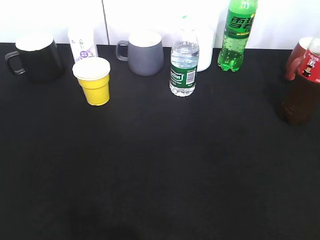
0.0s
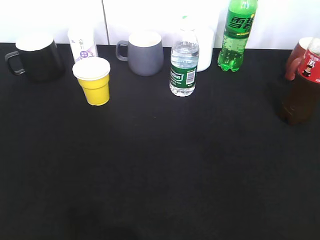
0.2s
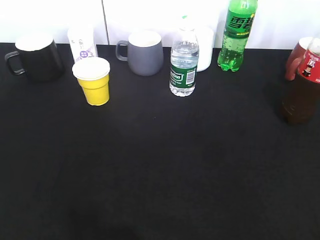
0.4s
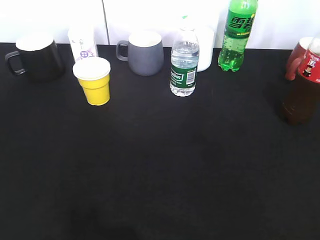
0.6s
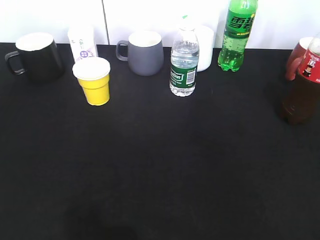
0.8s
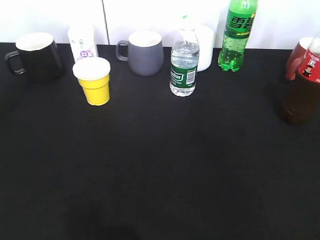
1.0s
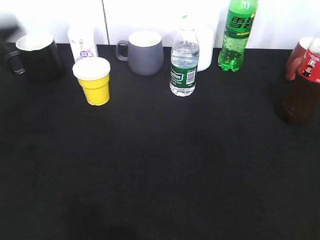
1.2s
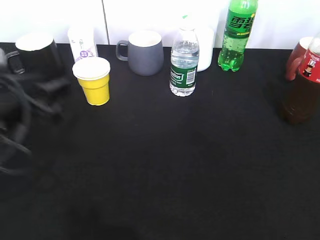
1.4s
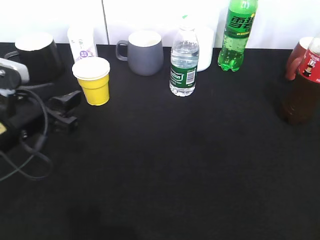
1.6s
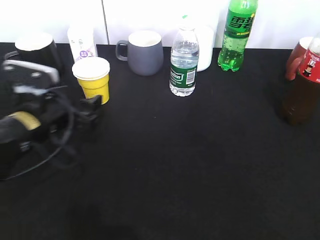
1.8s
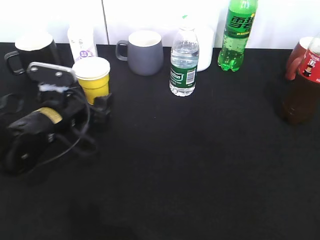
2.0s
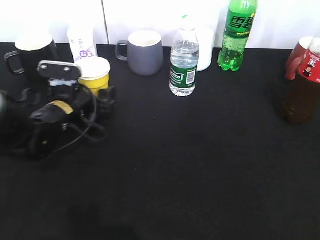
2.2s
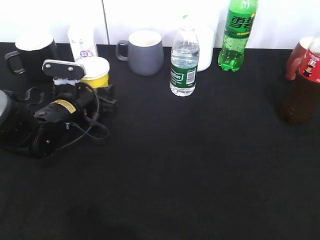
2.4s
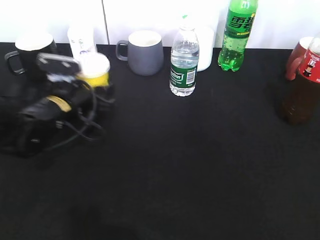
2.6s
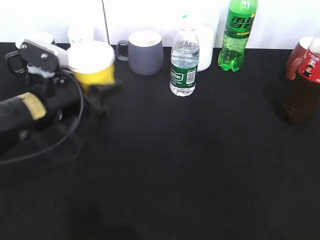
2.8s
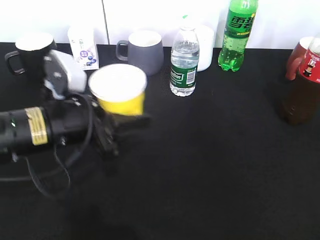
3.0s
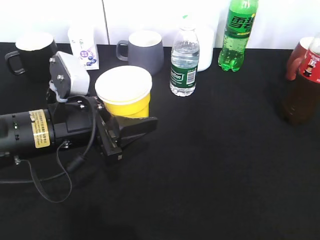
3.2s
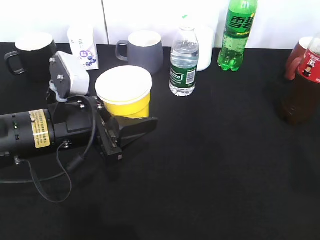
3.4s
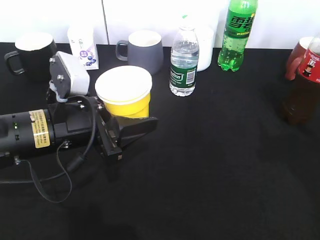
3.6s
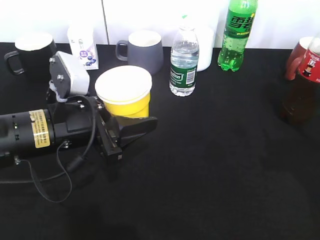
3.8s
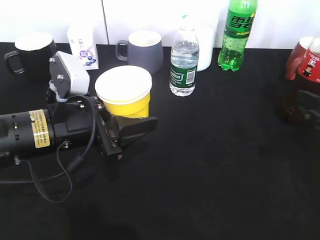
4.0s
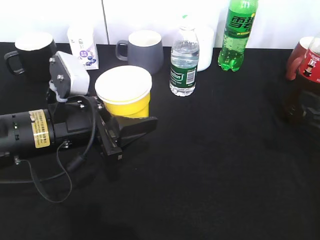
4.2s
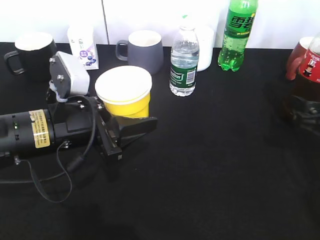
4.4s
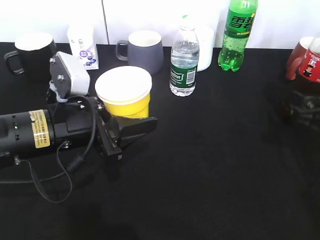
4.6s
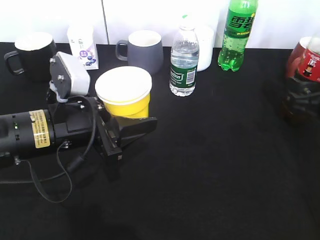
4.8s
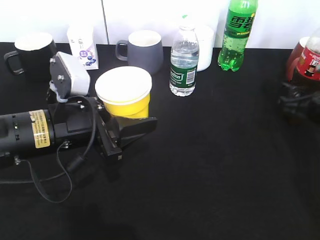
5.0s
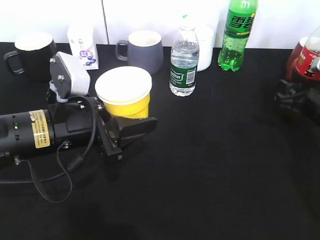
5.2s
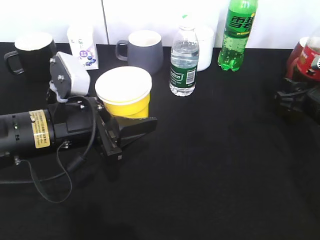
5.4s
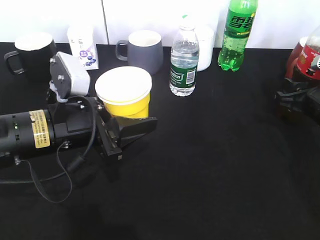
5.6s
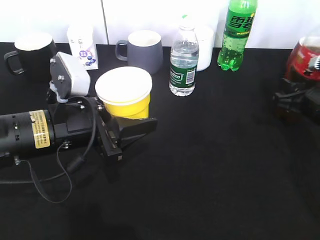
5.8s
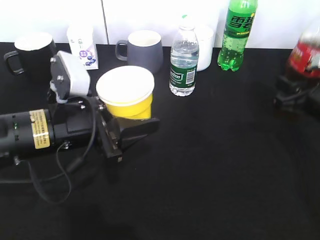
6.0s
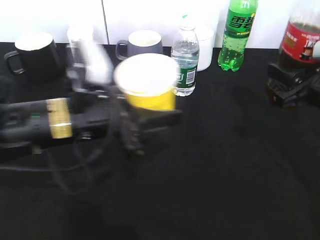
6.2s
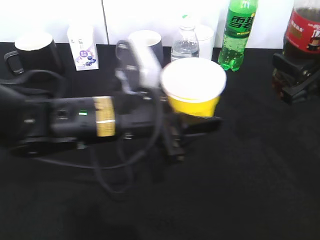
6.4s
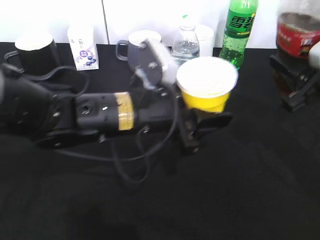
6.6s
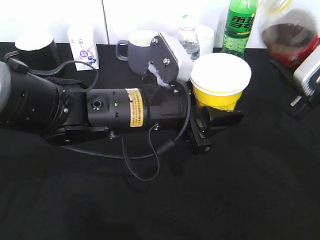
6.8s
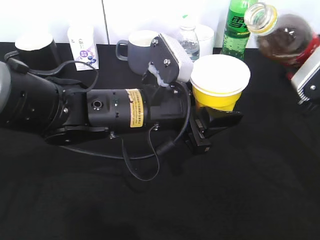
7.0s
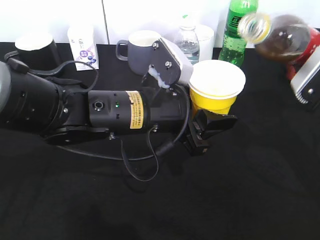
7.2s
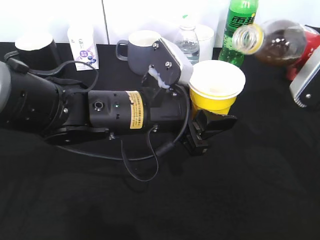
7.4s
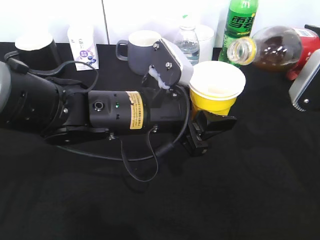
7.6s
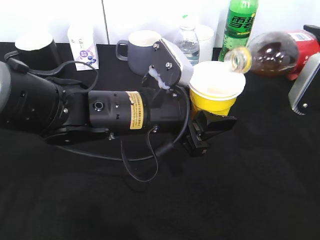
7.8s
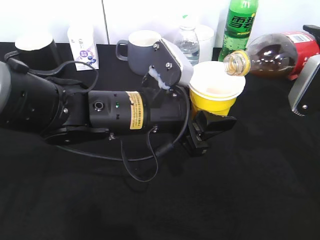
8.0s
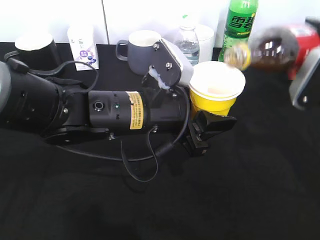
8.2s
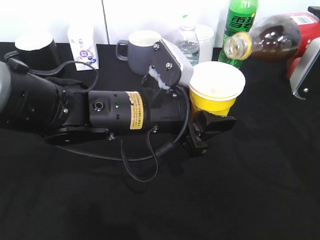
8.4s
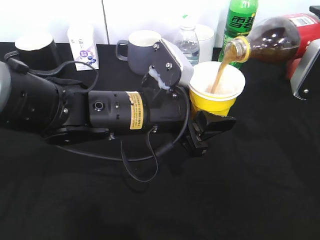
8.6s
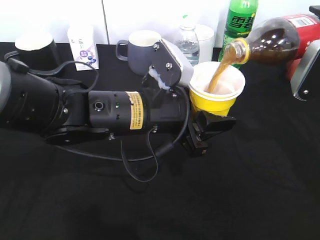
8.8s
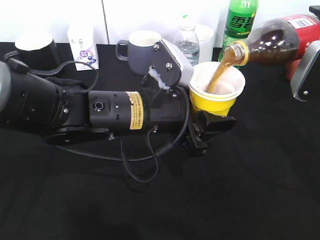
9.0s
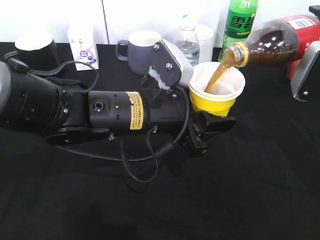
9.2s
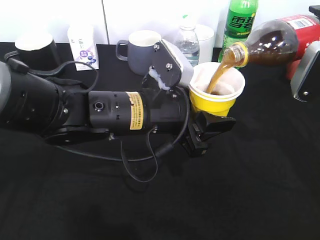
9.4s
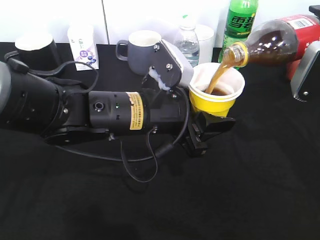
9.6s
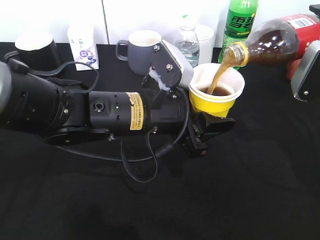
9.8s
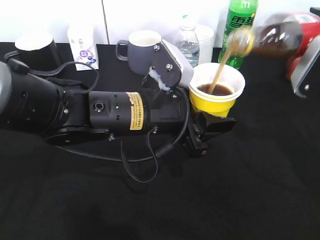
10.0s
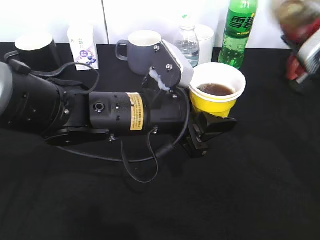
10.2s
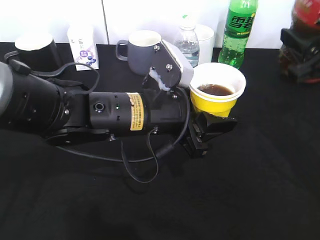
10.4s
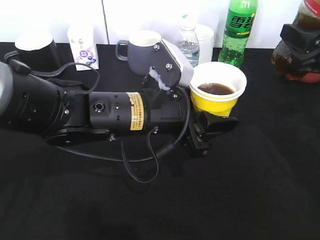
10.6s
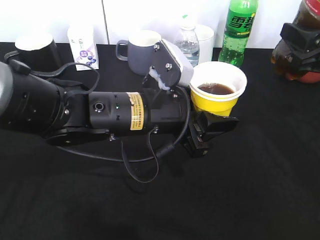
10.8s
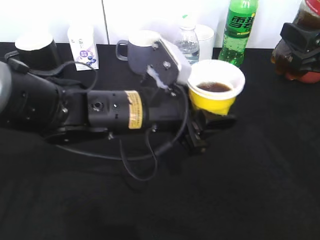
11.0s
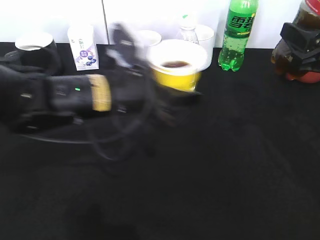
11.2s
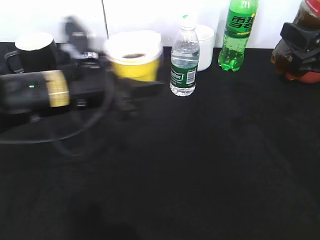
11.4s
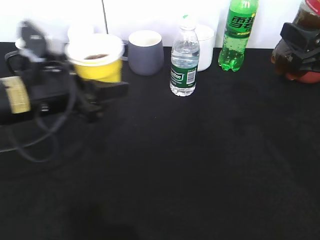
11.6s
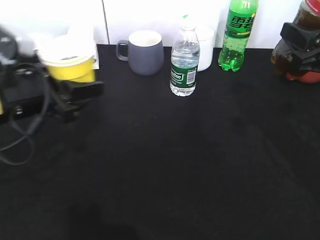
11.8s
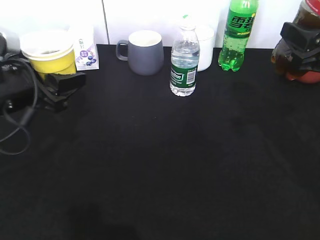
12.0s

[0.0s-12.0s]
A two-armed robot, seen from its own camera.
Step, 0.0s to 2.2s: Grasp the yellow paper cup with left gripper.
Step, 2.4s to 3.2s: Lift the yellow paper cup with left gripper.
Step, 5.8s to 9.8s: Pour the cola from bottle to cup with right gripper.
0.0s to 1.6s: The left gripper moves forward, downward and to the right, about 30 cm, and opens its fingers.
1.6s to 3.0s: The left gripper heads to the right, covering roughly 5 cm, travels forward and back again, approximately 10 cm each way, and opens and closes again.
3.0s to 4.4s: The right gripper is displaced forward and downward by roughly 25 cm.
4.4s to 6.0s: The right gripper closes.
6.0s to 7.6s: The left gripper travels to the right by roughly 10 cm. Meanwhile the right gripper goes approximately 5 cm upward.
7.6s to 9.0s: The grippers make only small movements.
10.4s to 12.0s: The left gripper is displaced to the left by about 20 cm.

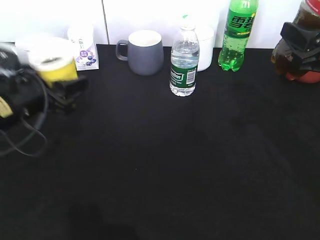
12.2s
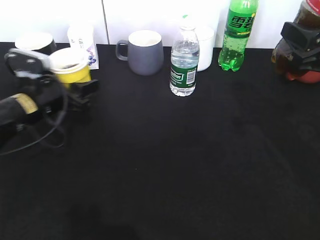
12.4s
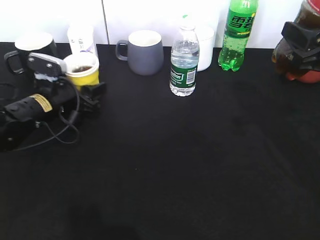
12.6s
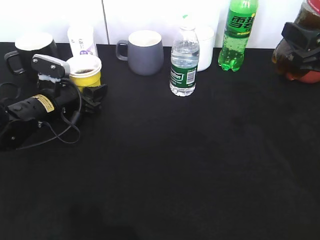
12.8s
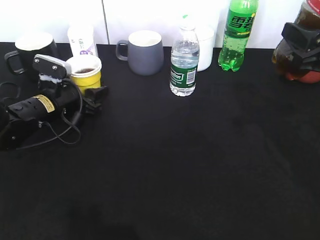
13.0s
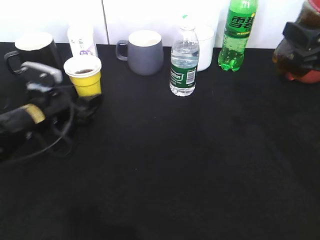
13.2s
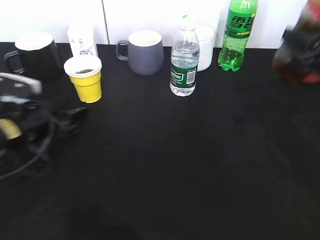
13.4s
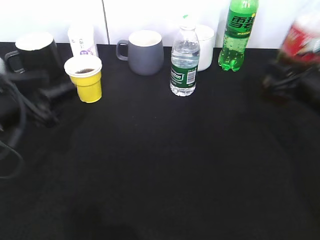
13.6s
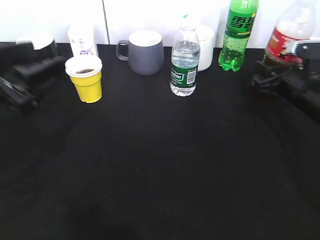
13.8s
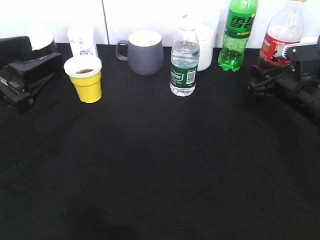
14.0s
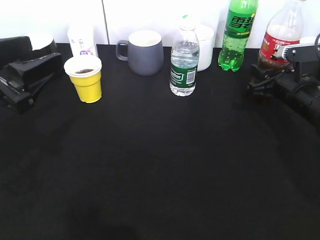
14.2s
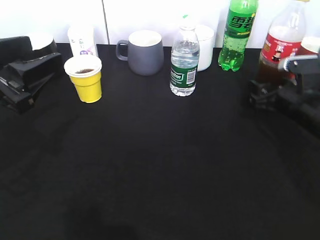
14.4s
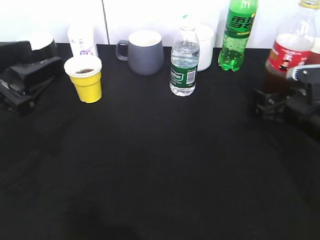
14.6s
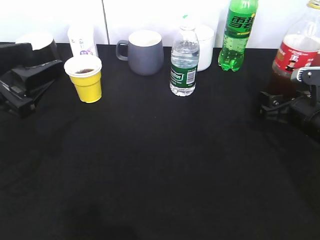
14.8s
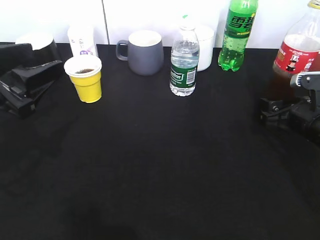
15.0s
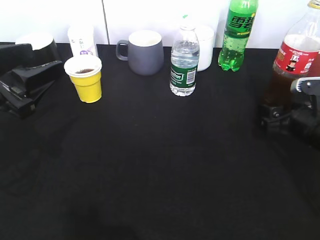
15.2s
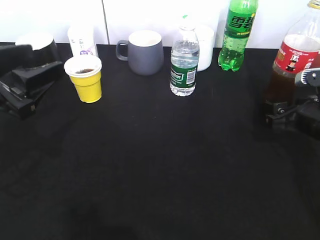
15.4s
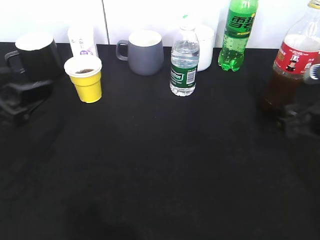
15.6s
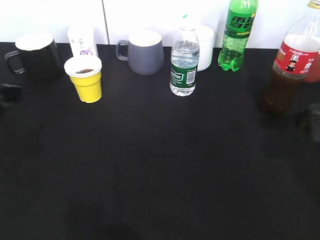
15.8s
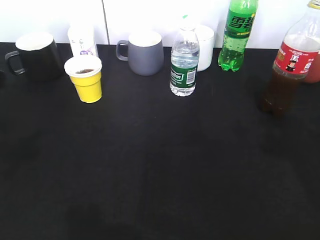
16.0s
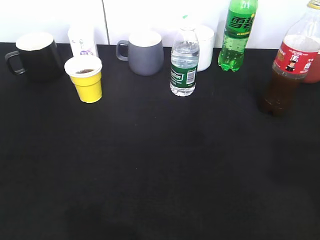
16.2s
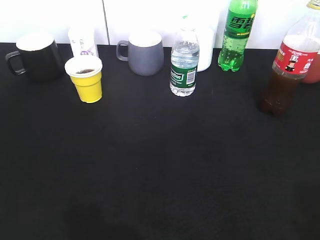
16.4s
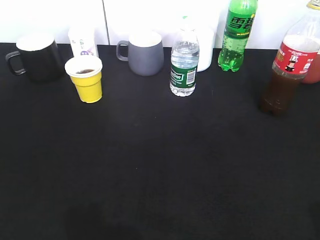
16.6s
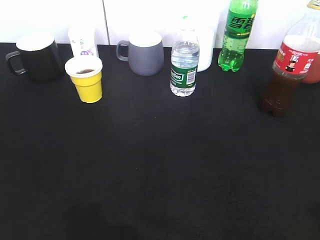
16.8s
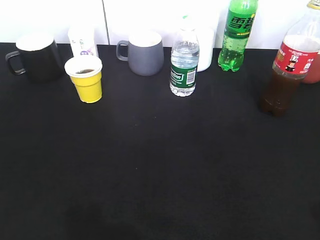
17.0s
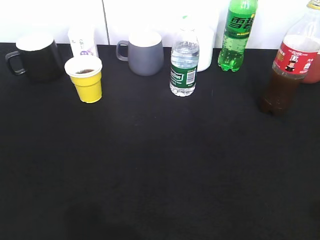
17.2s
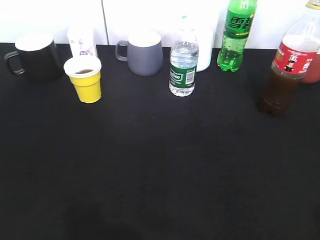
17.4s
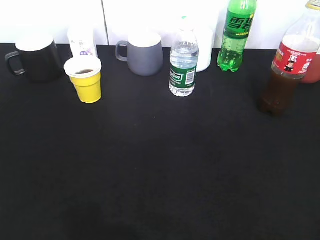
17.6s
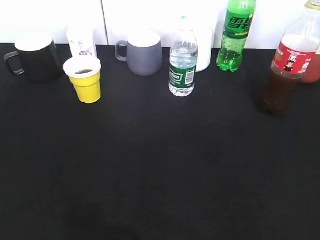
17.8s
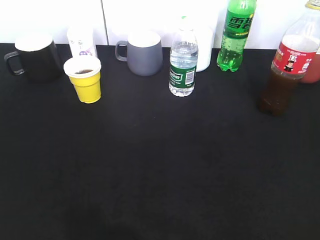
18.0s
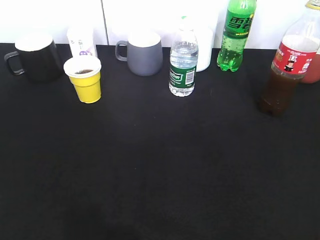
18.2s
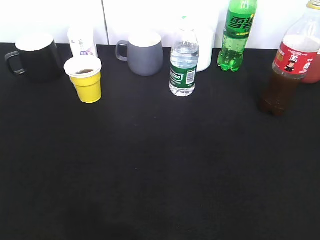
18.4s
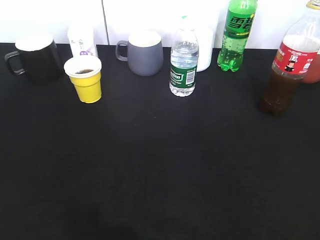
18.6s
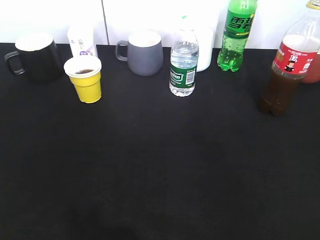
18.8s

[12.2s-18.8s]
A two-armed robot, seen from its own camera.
Step, 13.4s to 15.6s: Place the cola bottle on the table with right gripper.
12.2s to 13.8s: The right gripper goes about 15 cm downward and forward, while the left gripper heads upward and backward, covering approximately 10 cm.
13.8s to 15.4s: The right gripper travels backward by some 5 cm, and opens up.
15.4s to 17.2s: The left gripper goes some 20 cm backward and to the left. The right gripper goes roughly 30 cm backward and upward.

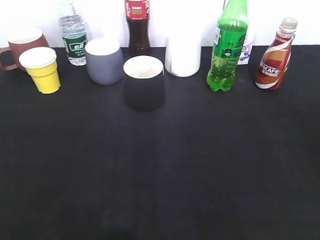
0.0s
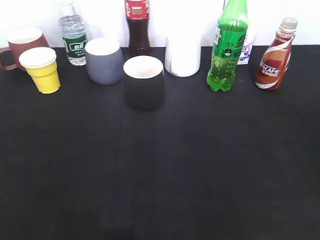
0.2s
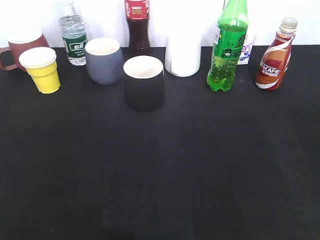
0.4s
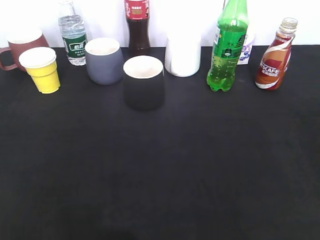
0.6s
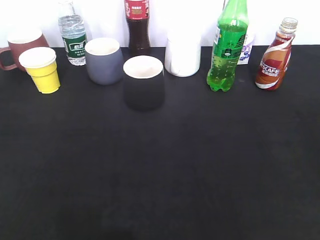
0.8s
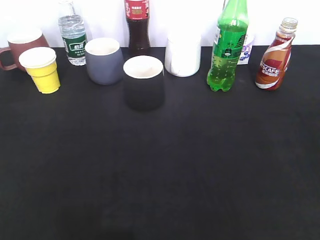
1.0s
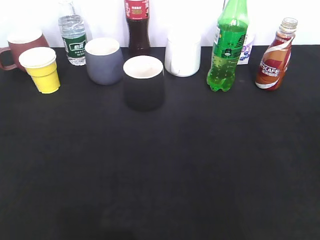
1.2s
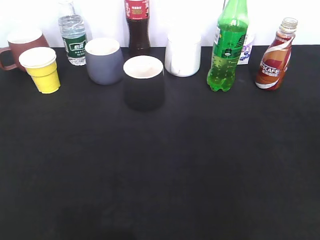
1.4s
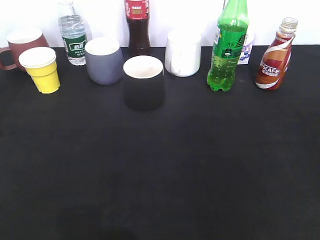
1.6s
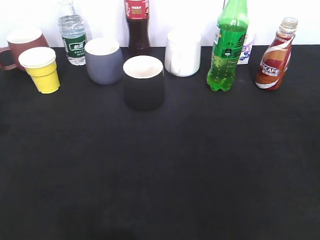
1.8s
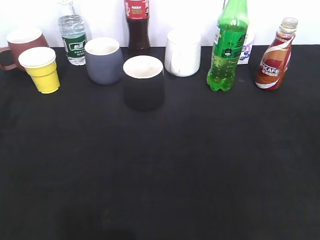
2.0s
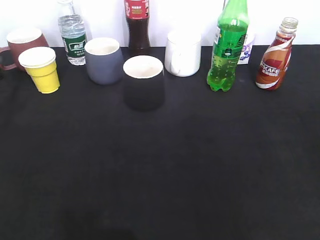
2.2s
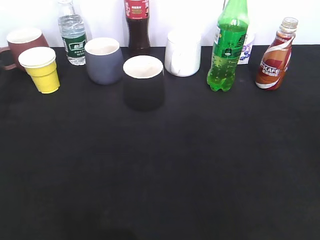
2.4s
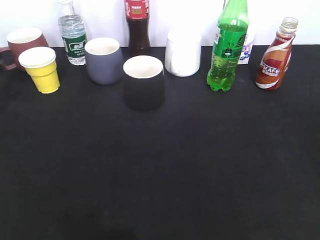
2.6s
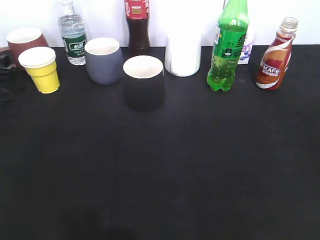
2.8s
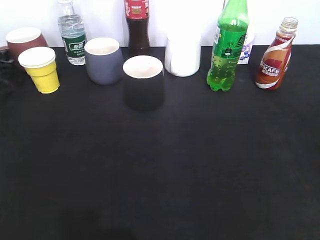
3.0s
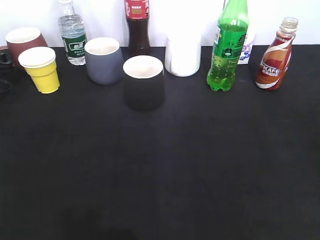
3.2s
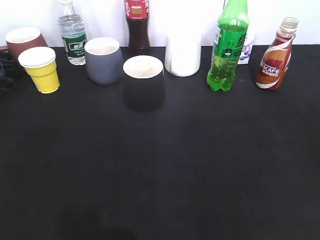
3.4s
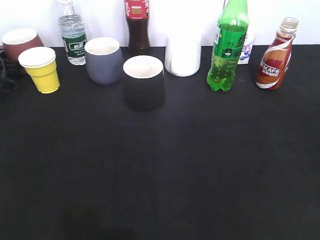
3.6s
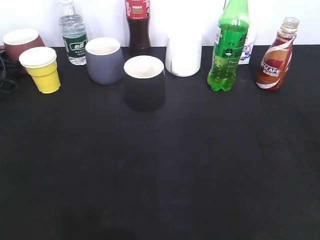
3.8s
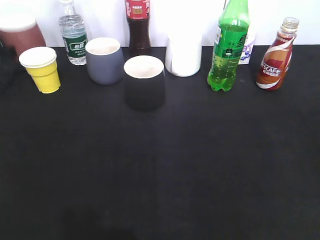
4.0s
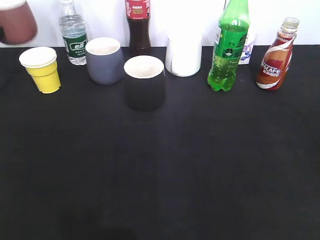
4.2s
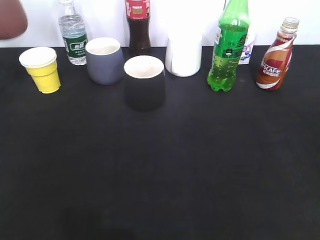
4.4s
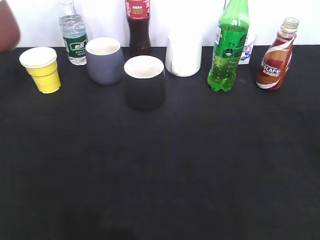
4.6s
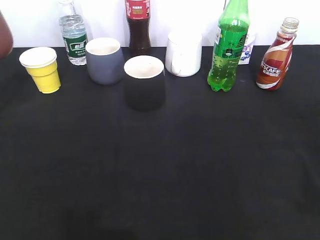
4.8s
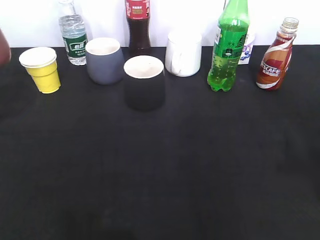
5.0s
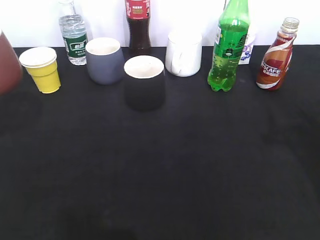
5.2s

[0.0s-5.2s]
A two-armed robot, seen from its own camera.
0.0s to 1.8s: The left gripper heads forward, covering approximately 25 cm.
1.8s to 3.4s: The left gripper heads forward and downward, covering approximately 25 cm.
3.4s to 5.2s: The left gripper shifts some 25 cm backward and upward, and closes up. Meanwhile the right gripper is displaced forward by about 20 cm.
